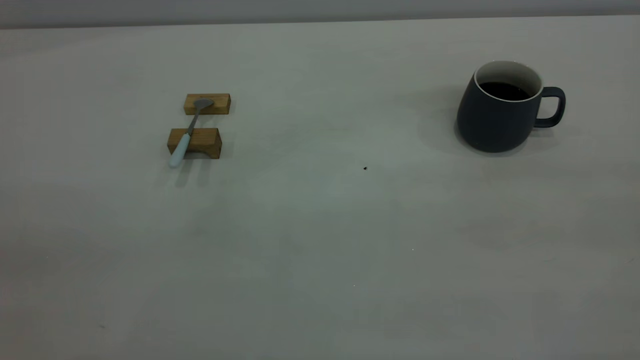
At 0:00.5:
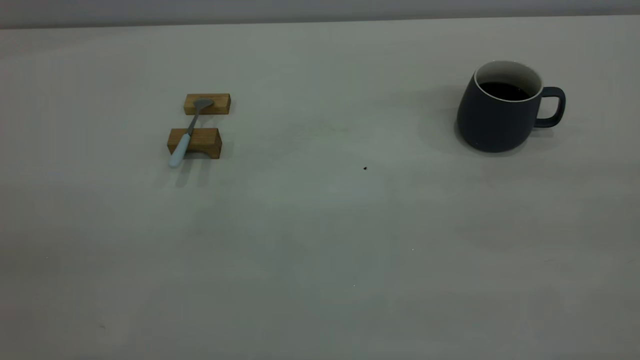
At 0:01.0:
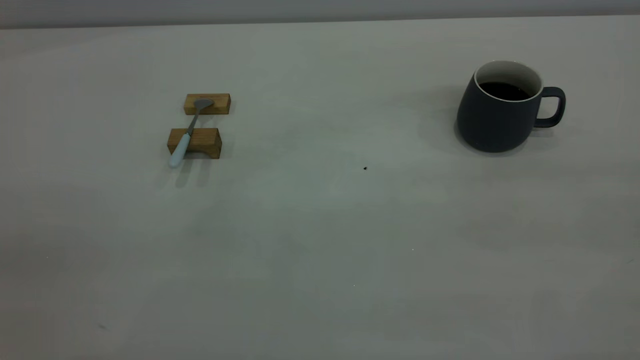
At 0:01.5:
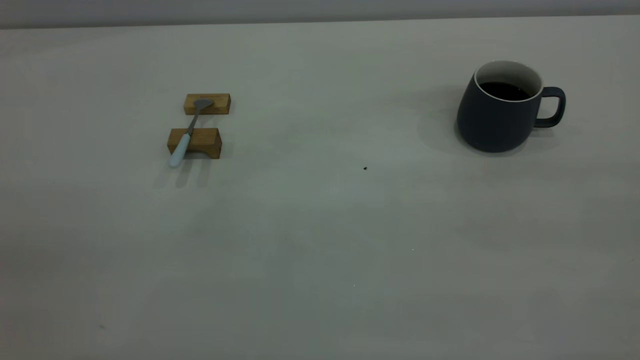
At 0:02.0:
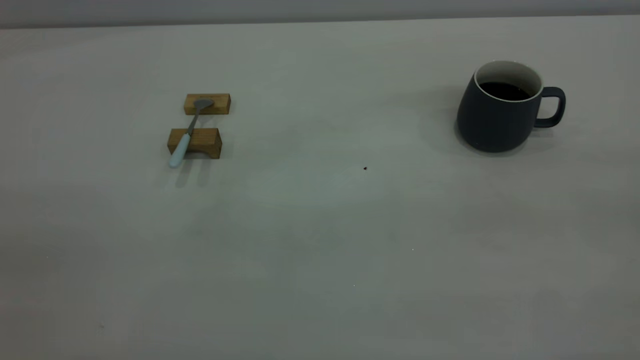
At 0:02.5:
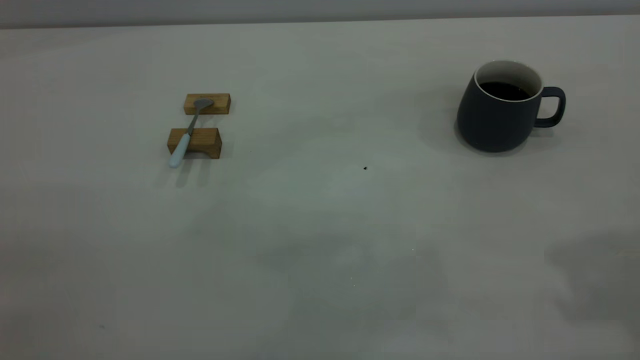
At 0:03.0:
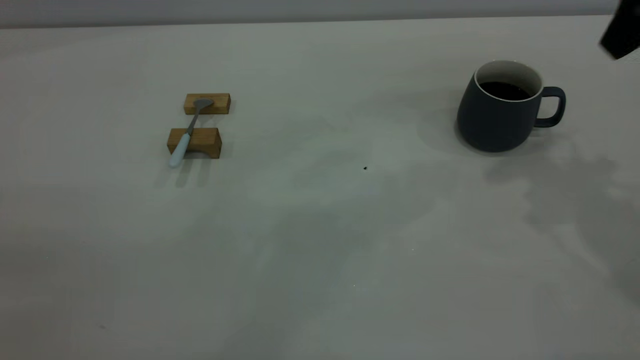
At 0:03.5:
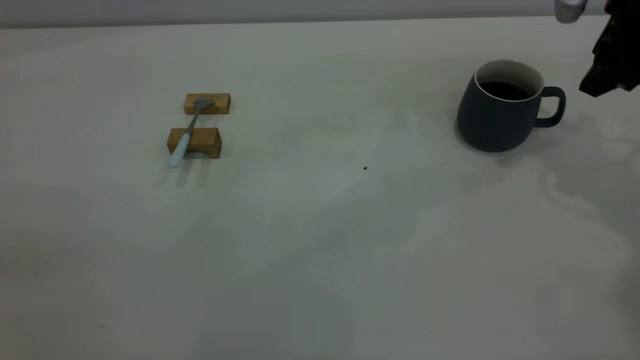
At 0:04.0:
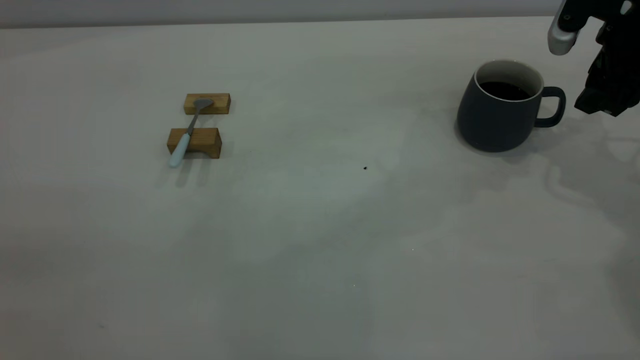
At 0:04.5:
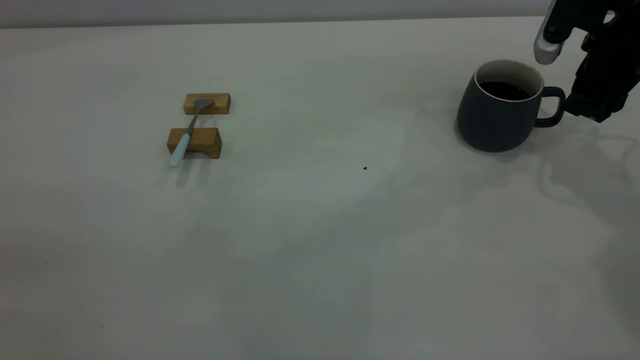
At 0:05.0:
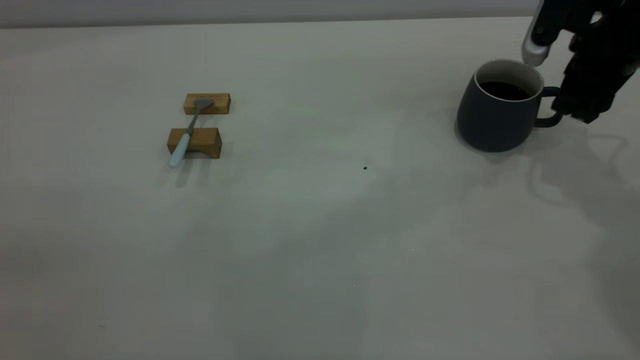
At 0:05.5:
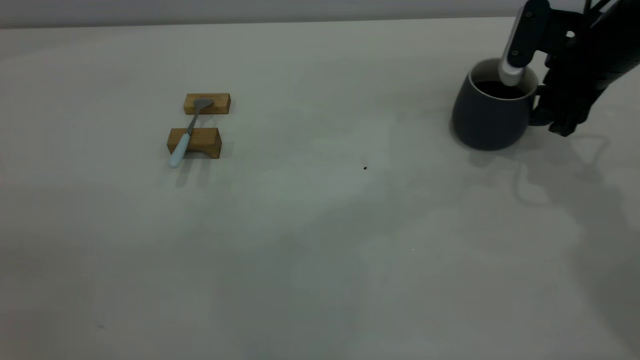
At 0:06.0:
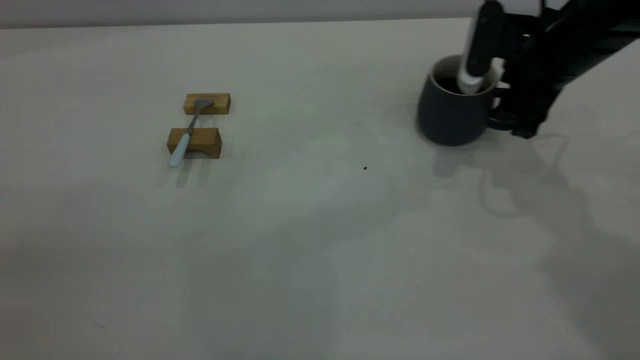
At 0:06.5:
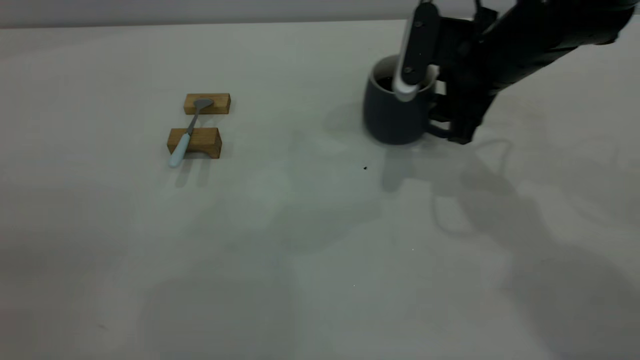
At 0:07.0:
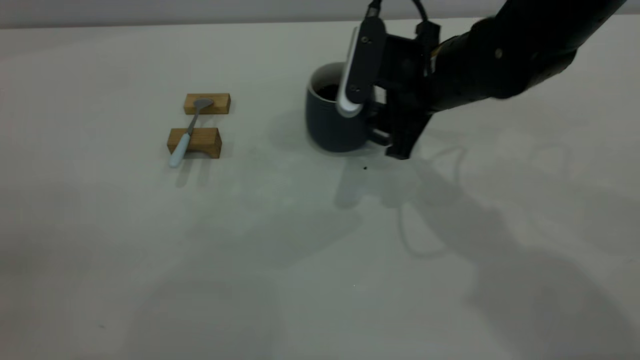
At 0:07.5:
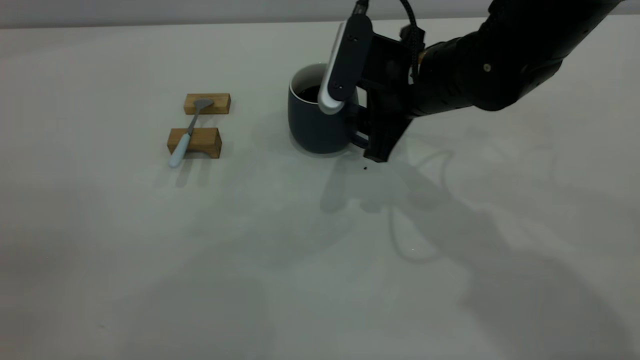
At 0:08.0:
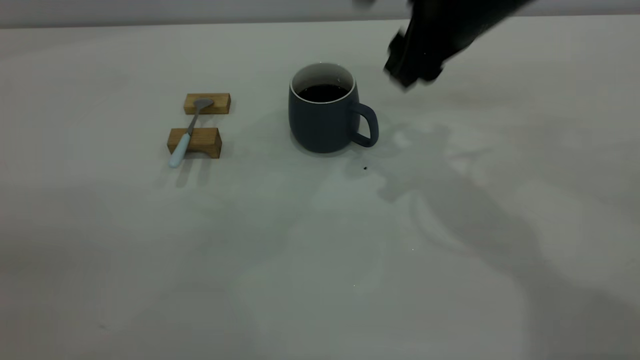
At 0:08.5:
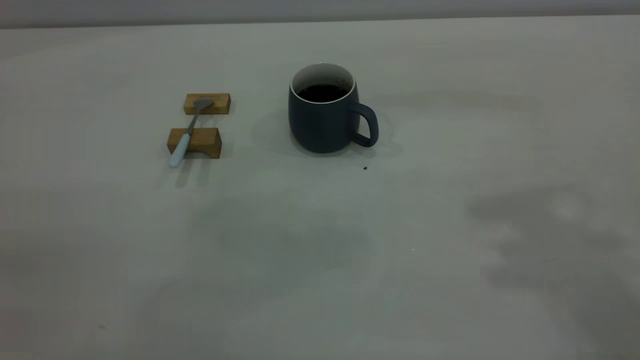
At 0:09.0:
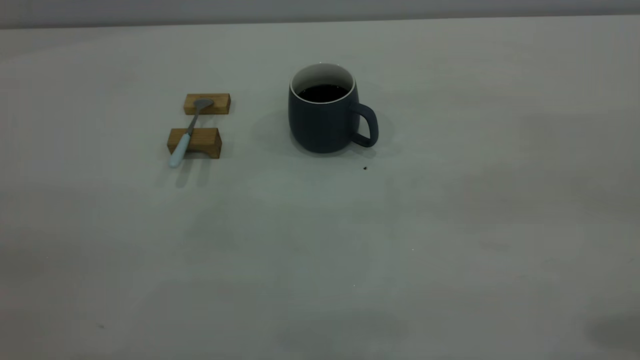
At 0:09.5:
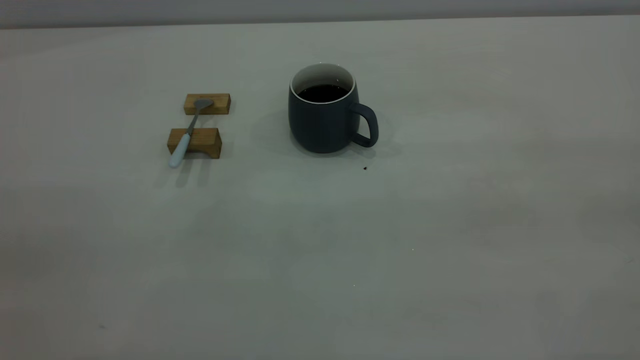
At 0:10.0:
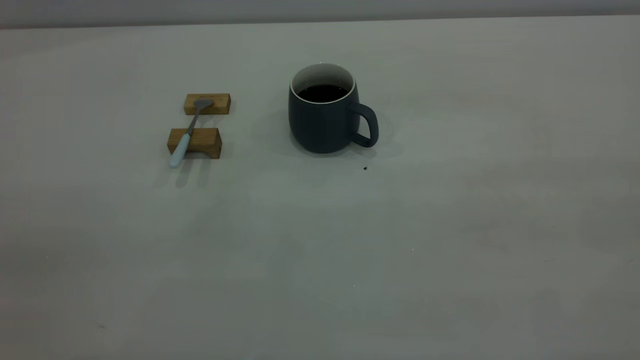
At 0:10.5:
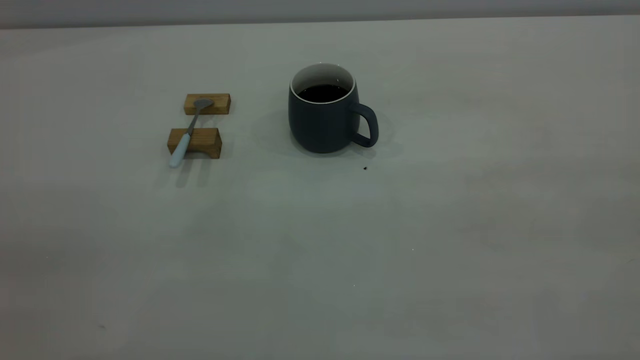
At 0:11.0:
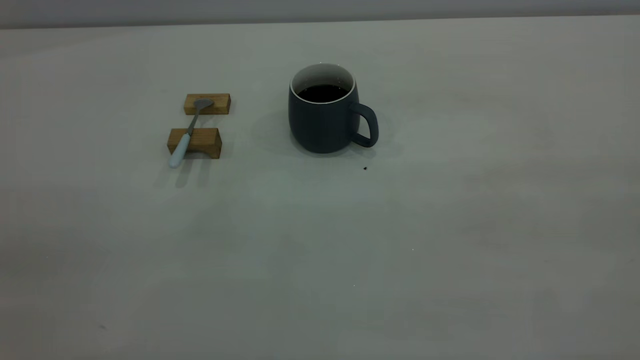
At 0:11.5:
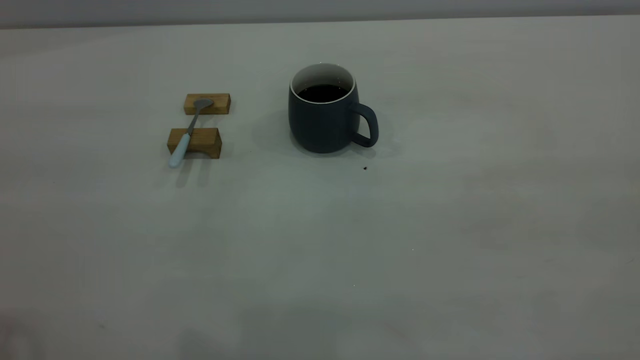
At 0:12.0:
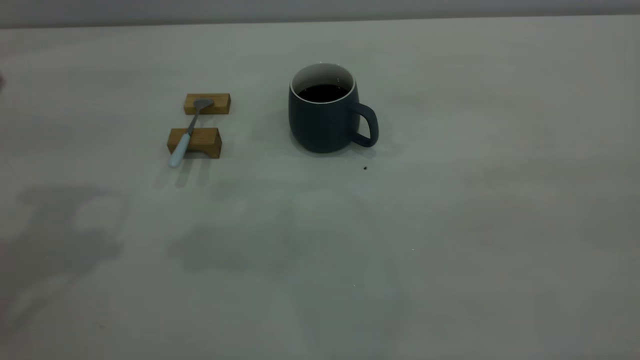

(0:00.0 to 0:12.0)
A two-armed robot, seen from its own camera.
Step, 0:00.0 - 0:07.5: Move the cup with coffee to the center of view.
0:02.0 - 0:04.0: The right gripper shifts approximately 40 cm forward and downward.
0:04.0 - 0:06.0: The right gripper is displaced to the left by some 10 cm.
0:06.0 - 0:08.0: The right gripper is displaced to the left and upward by roughly 15 cm.
0:08.0 - 0:10.0: The right gripper is displaced backward and to the right by approximately 40 cm.

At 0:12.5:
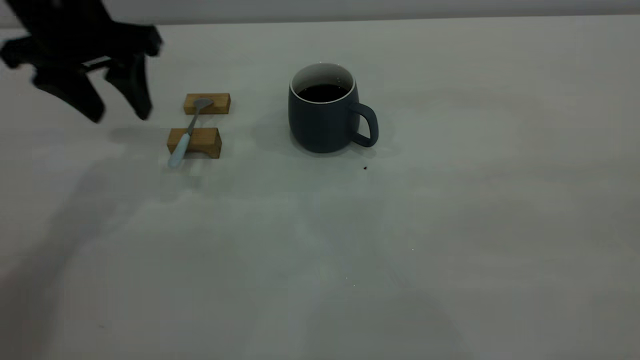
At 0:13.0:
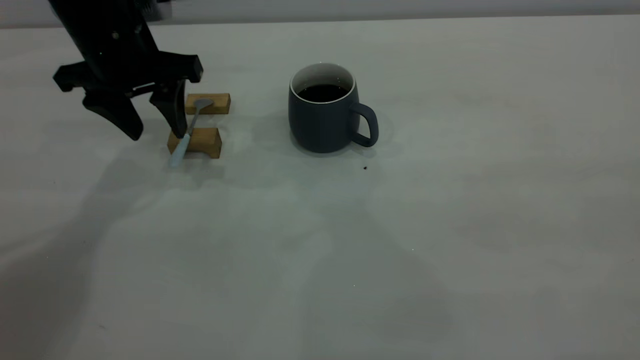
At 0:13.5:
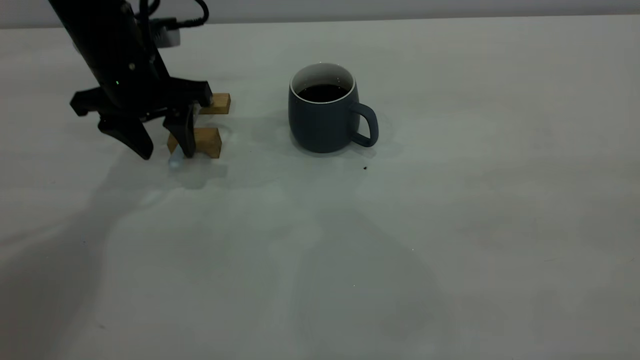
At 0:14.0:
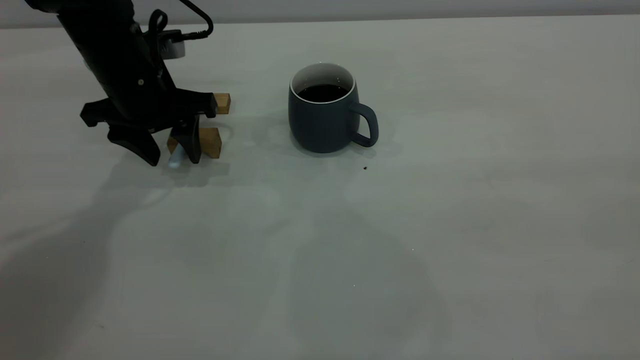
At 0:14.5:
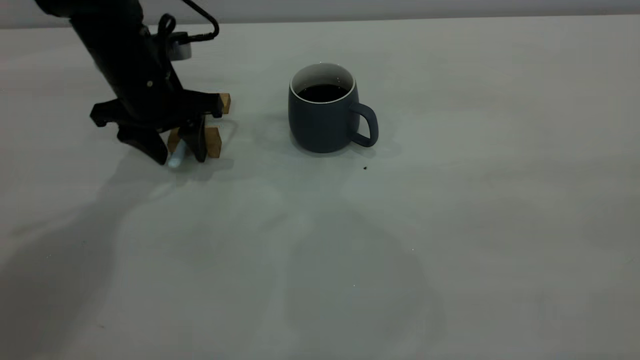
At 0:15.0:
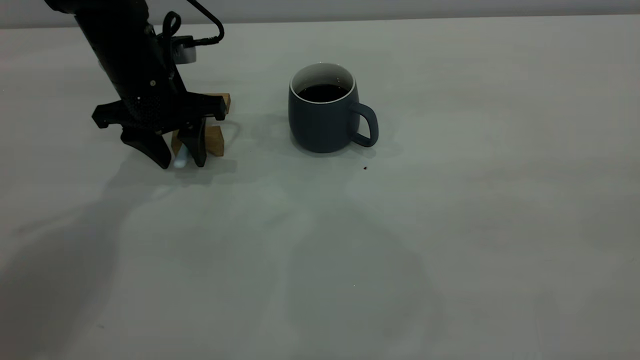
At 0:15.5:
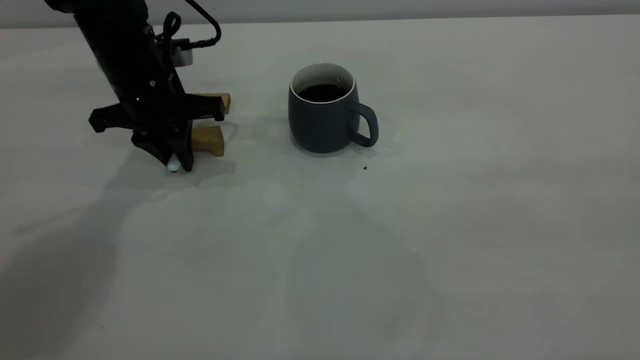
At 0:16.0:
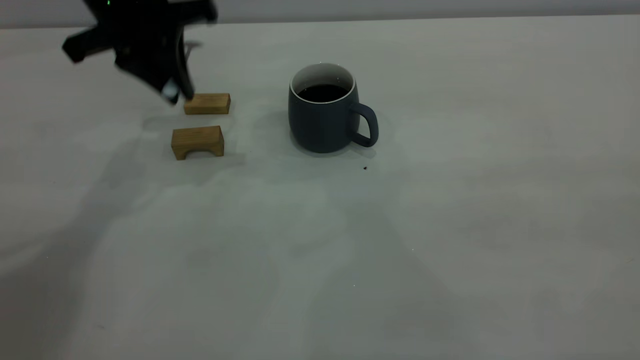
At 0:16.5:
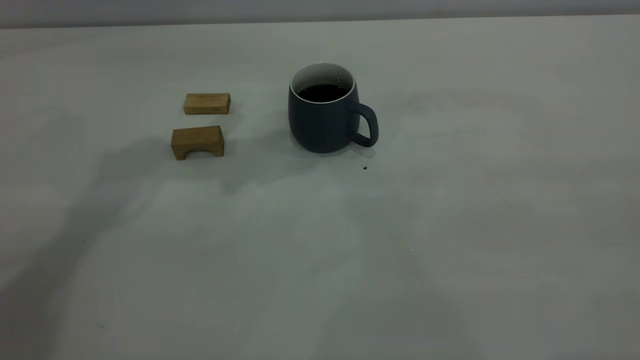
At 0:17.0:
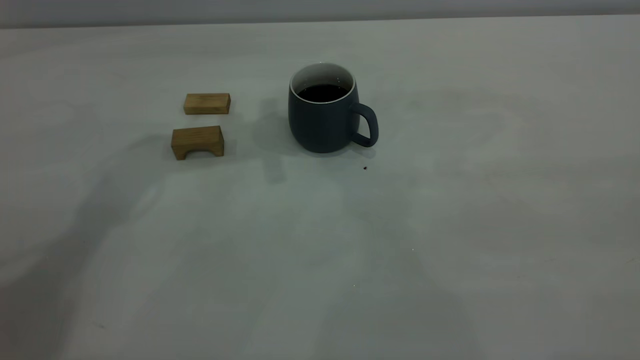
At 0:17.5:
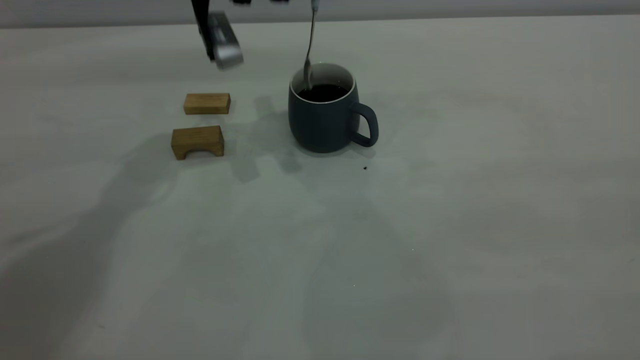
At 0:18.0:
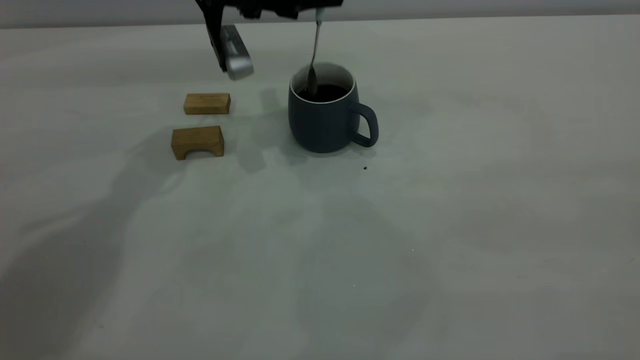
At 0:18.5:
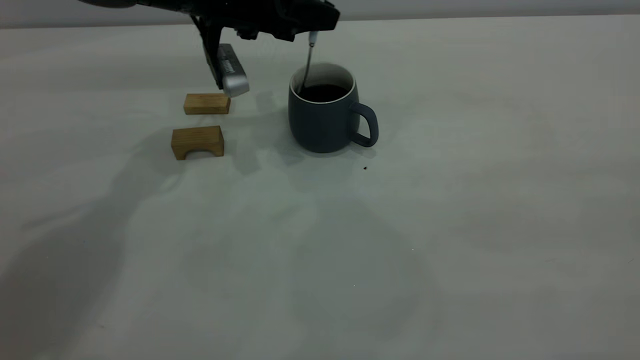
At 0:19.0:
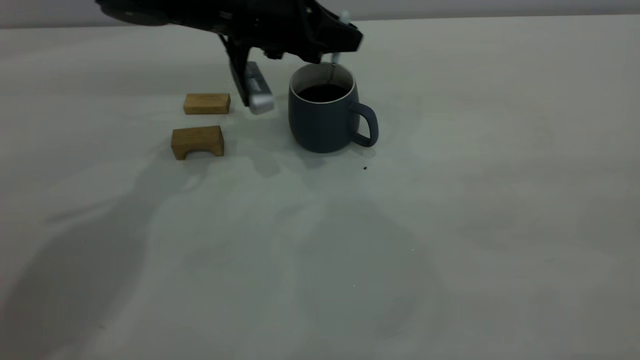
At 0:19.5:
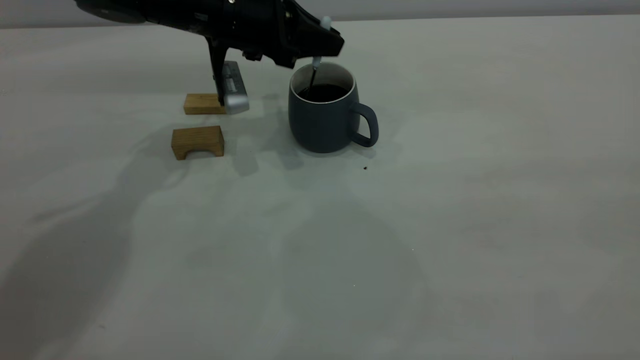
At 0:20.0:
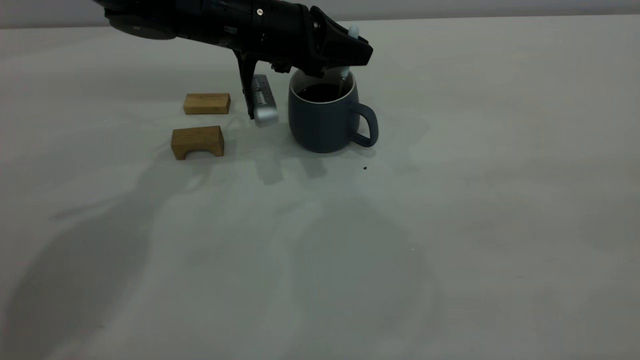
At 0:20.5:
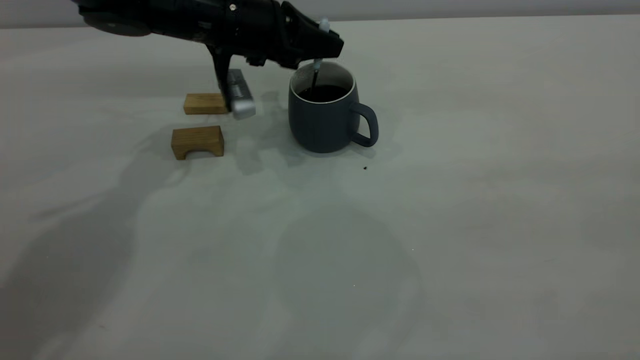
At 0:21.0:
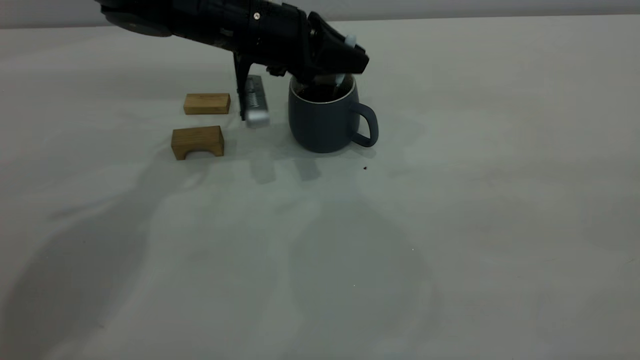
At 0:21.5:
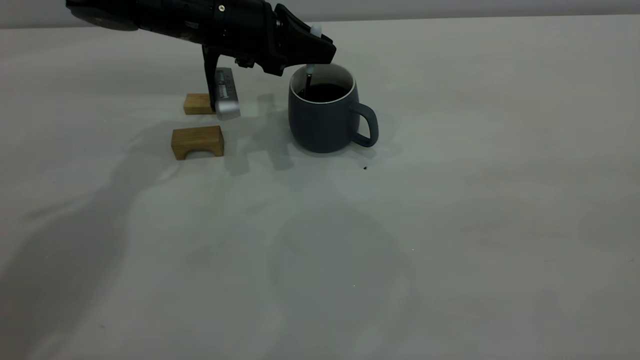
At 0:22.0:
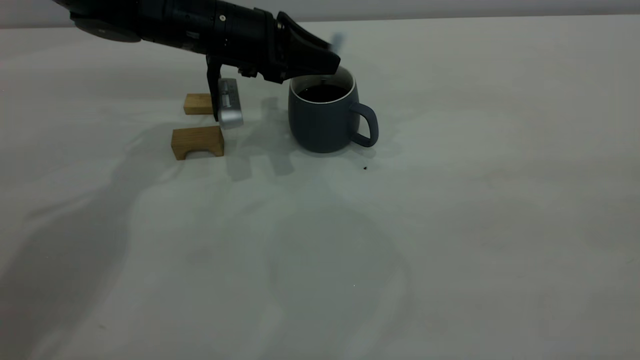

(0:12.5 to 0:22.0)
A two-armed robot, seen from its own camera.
Step, 0:12.5 - 0:15.5: Pick up the spoon.
0:12.5 - 0:14.5: The left gripper goes some 10 cm downward.
0:14.5 - 0:16.5: The left gripper travels upward by approximately 20 cm, and closes.
0:16.5 - 0:18.0: The left gripper is displaced downward and forward by about 15 cm.
0:18.0 - 0:20.0: The left gripper shifts by approximately 5 cm.
0:20.0 - 0:22.0: The left gripper opens.
